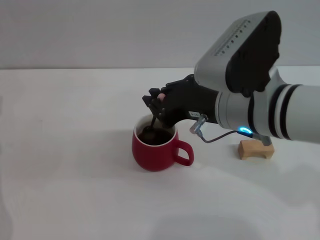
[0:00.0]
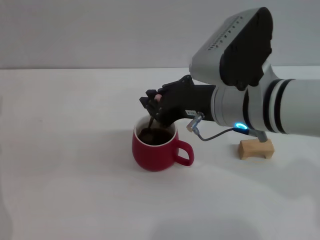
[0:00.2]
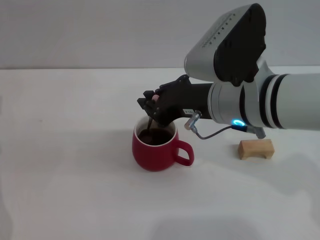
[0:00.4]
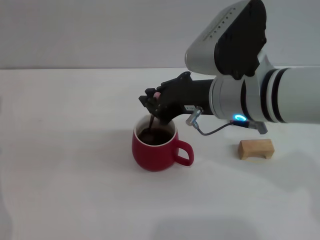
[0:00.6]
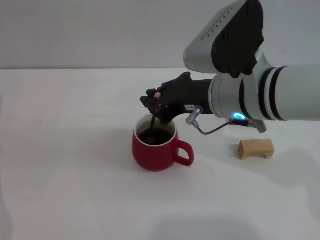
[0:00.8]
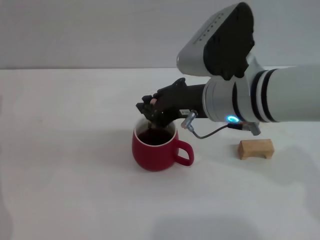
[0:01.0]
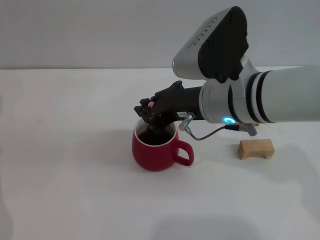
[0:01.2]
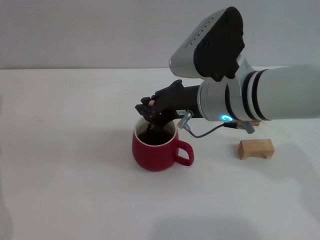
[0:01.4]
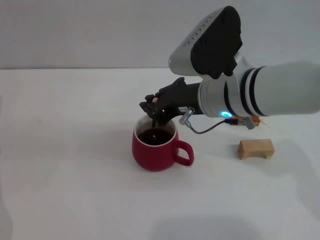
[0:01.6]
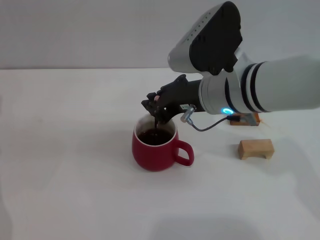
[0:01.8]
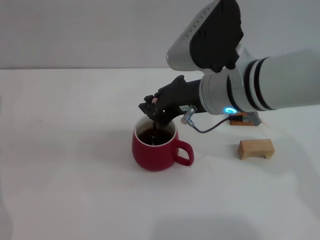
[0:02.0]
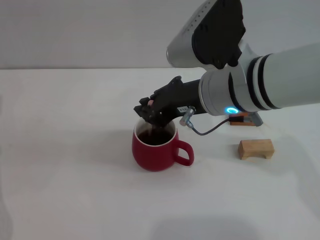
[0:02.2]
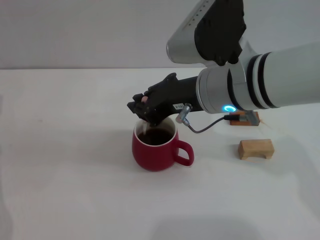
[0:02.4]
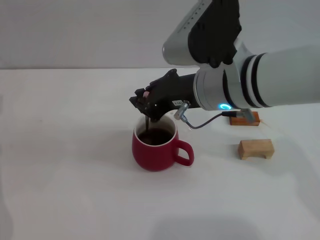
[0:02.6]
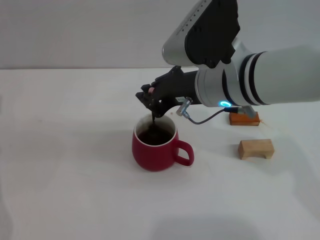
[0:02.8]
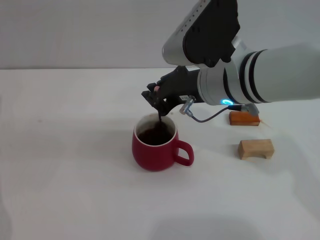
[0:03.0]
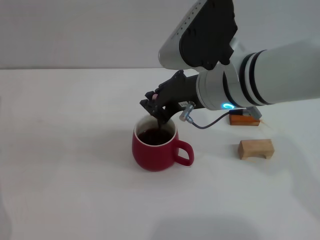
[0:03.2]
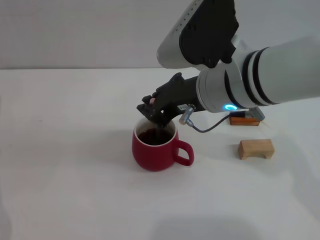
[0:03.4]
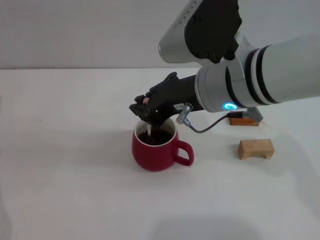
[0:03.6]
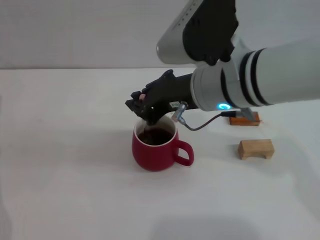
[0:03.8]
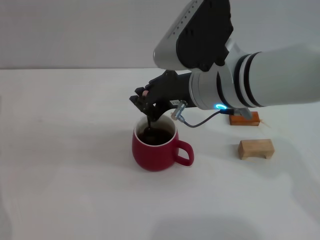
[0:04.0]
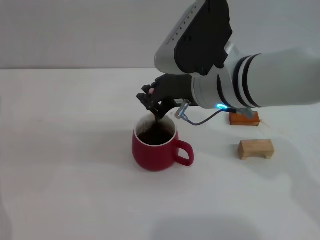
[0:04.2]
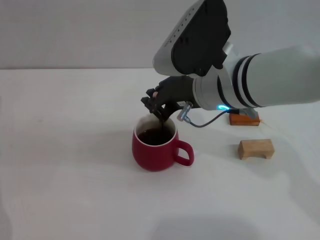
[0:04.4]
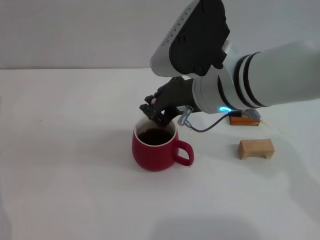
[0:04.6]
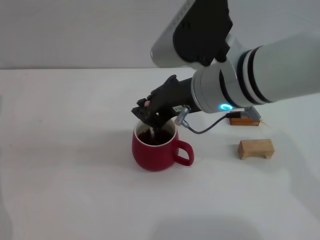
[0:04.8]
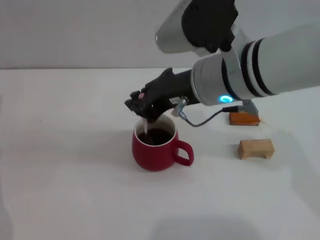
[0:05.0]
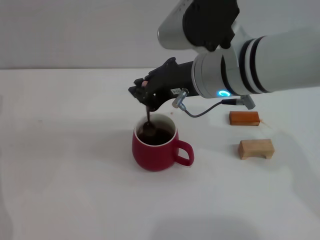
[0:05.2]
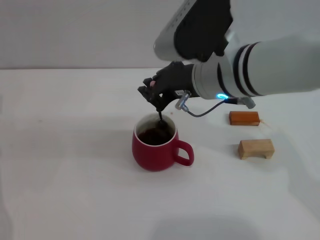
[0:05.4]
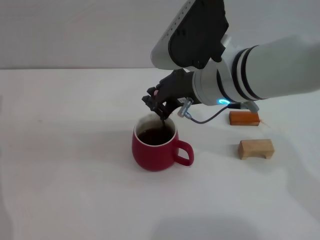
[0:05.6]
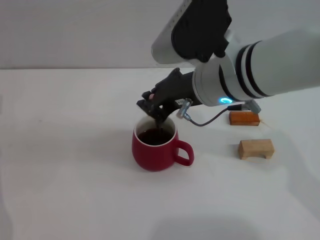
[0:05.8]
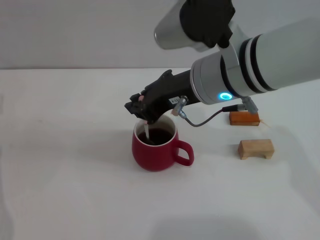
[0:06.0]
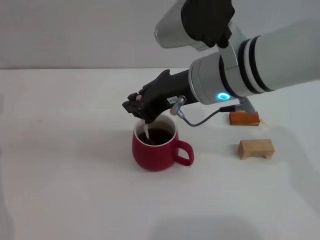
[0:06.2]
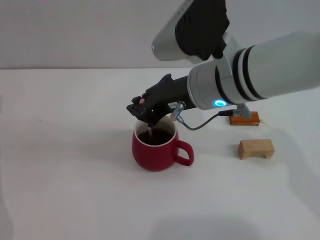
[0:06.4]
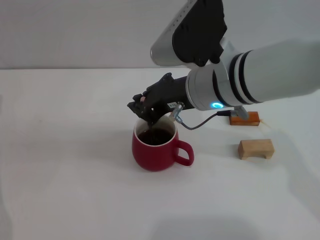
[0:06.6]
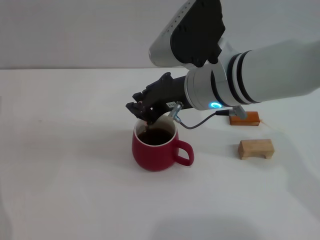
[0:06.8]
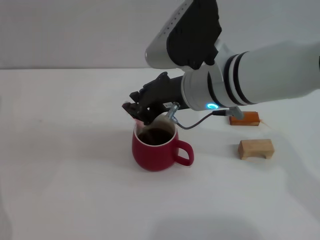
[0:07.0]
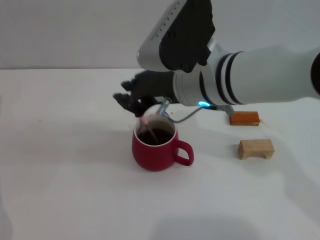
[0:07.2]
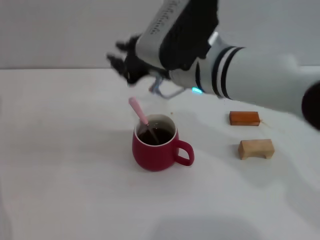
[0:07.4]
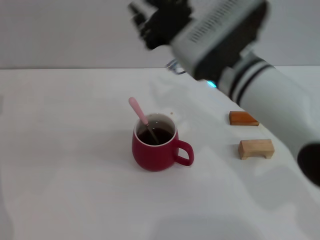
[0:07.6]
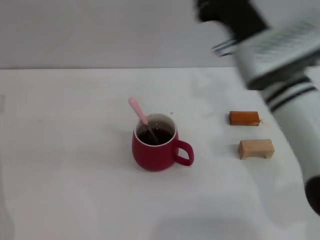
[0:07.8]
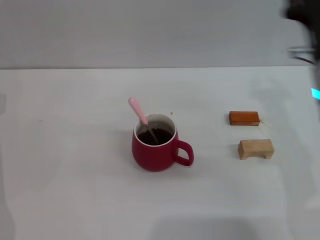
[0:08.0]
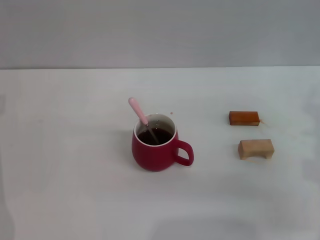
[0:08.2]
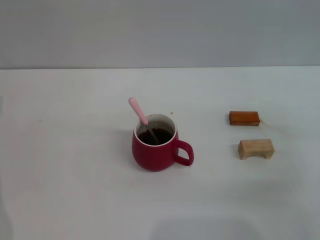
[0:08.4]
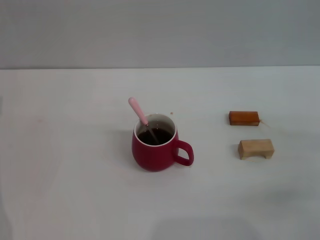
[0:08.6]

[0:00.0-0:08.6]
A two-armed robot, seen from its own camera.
Task of the whole recording: Move the red cup to the center, lift the pink spoon, stir it three times in the cup, and put the spoon into the cup.
Step, 0:00.0 to 0:07.2: Stir the coffee in the cup with the right gripper.
0:00.0 to 0:05.8: The grippers move only a little.
0:05.8 to 0:07.2: The grippers make only small movements.
0:07.2 to 0:08.6: The right gripper is displaced to the right and downward by approximately 30 cm.

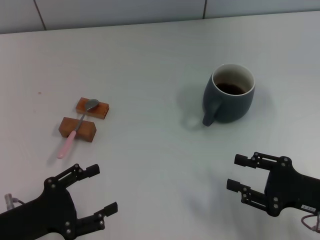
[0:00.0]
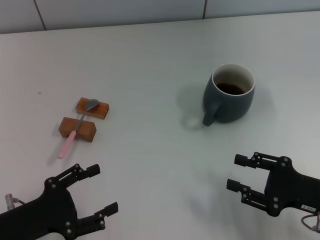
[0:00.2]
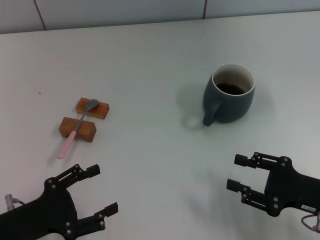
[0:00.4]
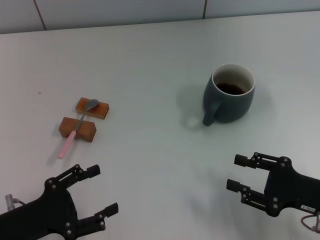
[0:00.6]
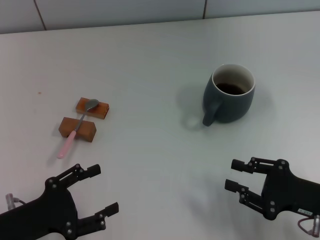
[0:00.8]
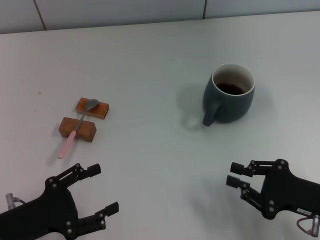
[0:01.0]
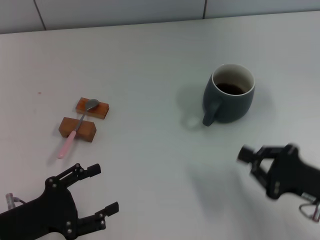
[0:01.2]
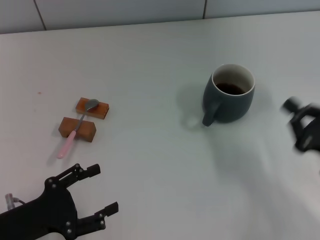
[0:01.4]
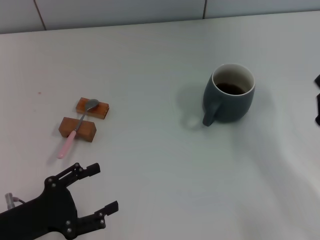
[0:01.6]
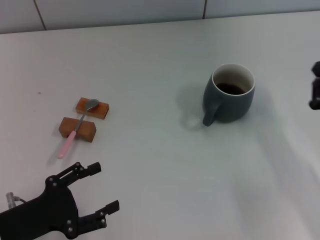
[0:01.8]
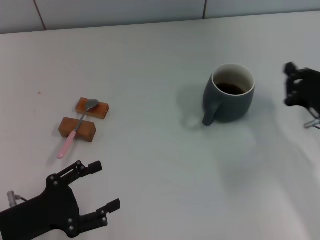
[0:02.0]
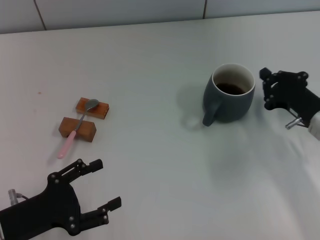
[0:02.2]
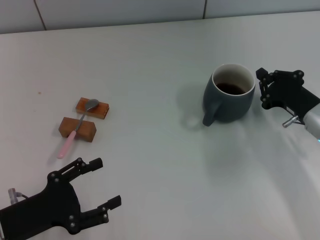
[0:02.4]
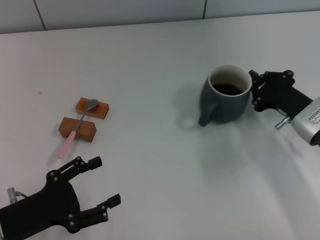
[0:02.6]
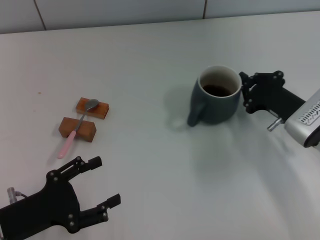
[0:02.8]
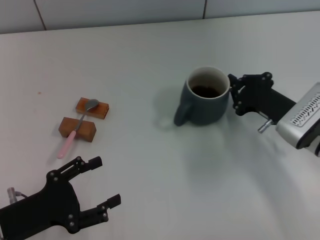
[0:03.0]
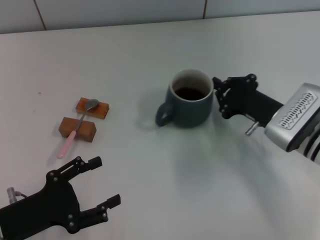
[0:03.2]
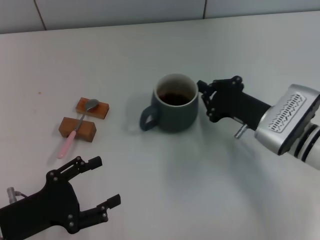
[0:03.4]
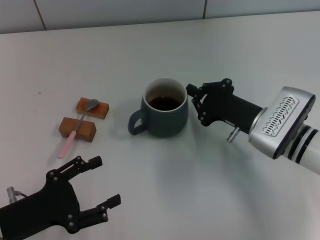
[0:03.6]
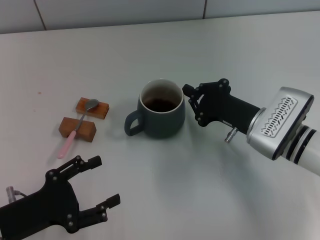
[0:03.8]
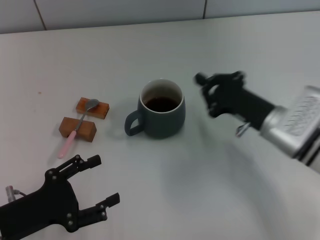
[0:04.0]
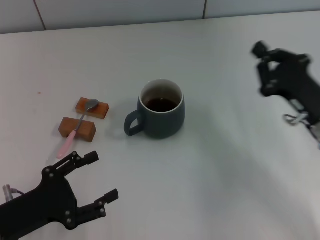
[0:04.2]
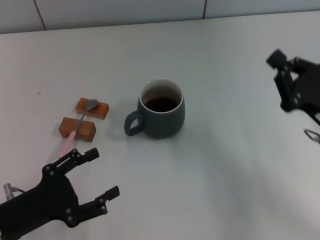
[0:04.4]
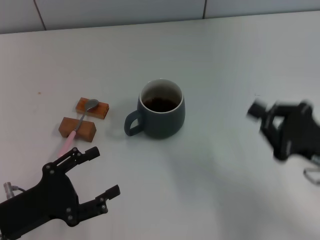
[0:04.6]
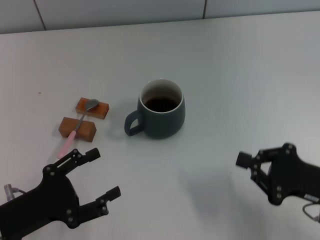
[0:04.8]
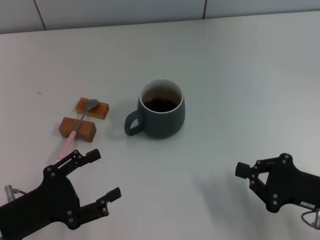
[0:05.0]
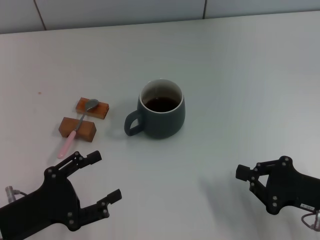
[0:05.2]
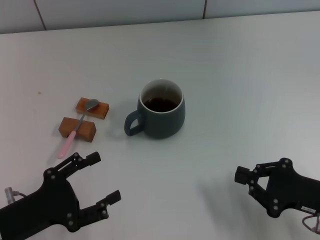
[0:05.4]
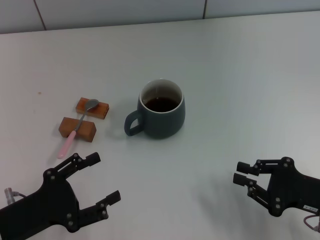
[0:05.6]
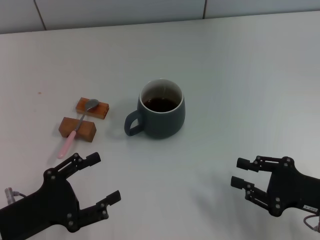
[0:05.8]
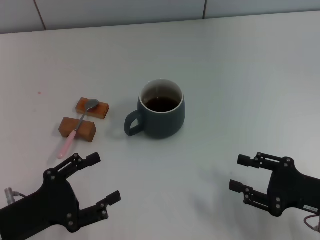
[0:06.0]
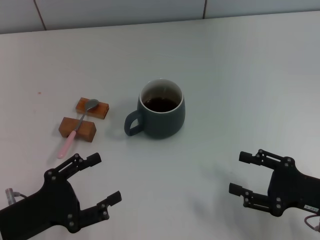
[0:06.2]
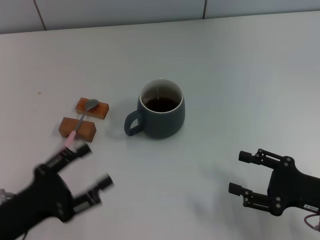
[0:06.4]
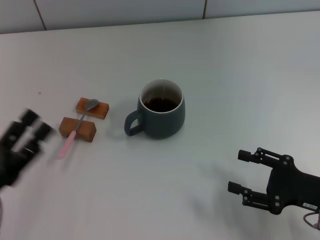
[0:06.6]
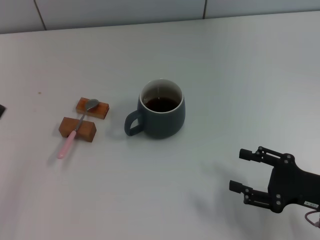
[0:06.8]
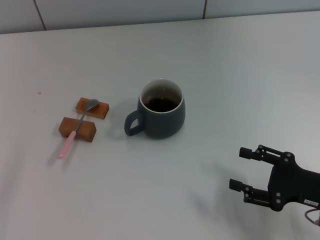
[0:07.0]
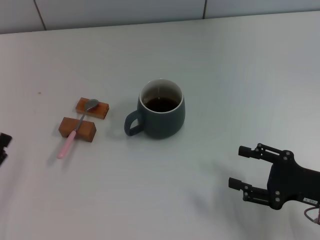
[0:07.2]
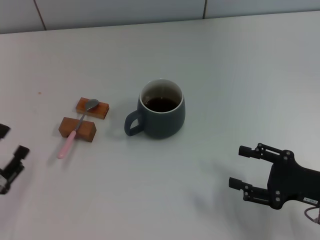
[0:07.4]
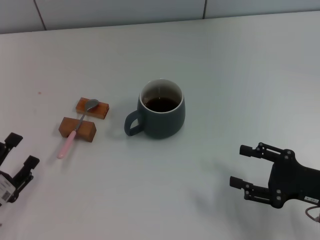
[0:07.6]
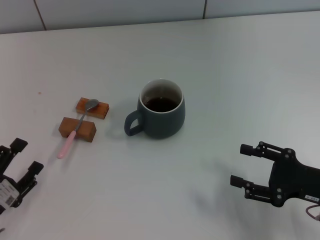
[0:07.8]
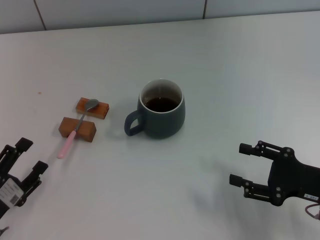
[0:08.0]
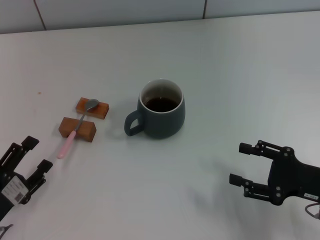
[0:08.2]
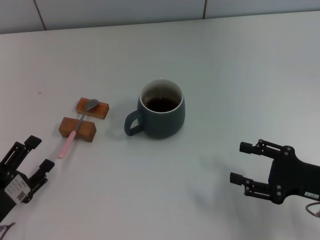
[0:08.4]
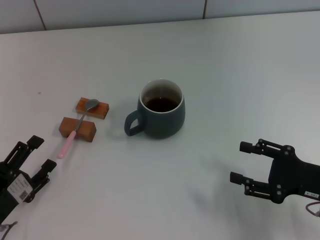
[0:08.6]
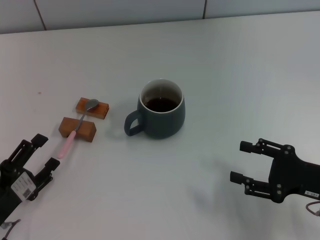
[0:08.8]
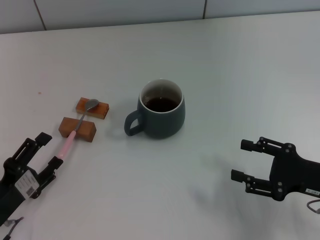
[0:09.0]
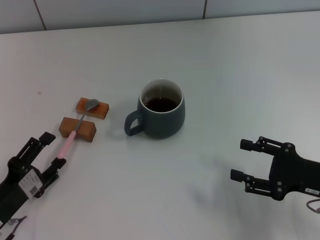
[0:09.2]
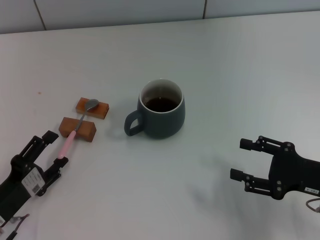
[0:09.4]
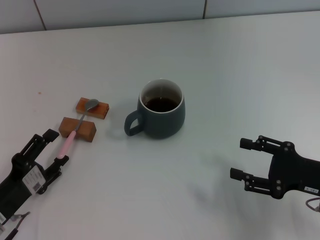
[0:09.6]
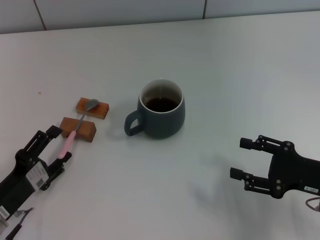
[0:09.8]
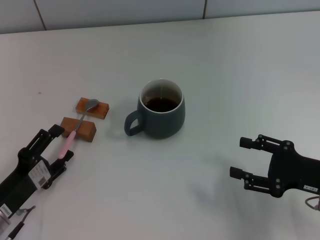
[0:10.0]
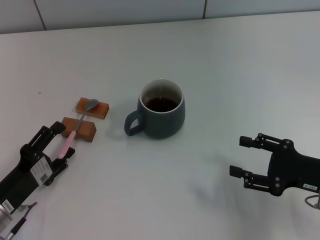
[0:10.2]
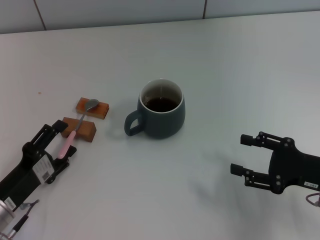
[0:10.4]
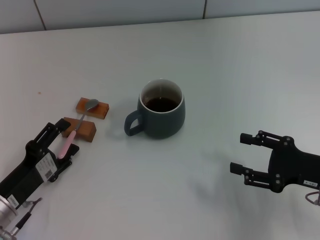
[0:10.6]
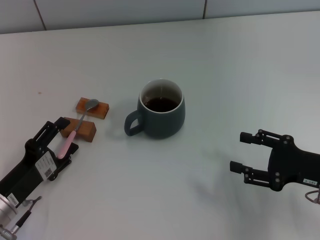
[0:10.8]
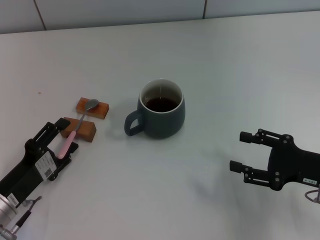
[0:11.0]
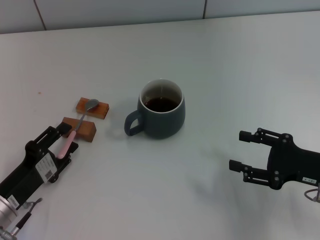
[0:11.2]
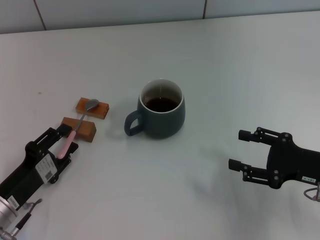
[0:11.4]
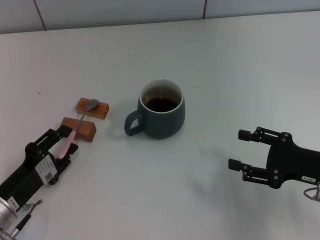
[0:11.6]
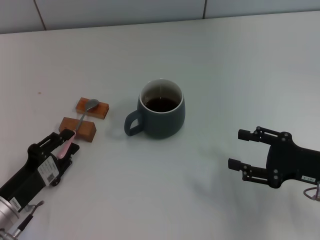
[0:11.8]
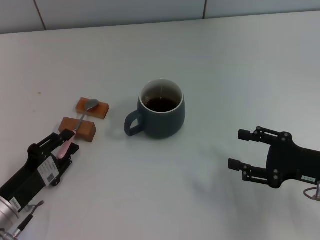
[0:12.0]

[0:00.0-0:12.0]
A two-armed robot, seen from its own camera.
Task of the whole recording: Move the grey cup to the center, lift the pink spoon, stir it three times in the cup, and put the spoon into the cup.
Step, 0:00.0 to 0:04.0: Move the cup with coffee to the center of view with the right gripper.
0:00.0 to 0:01.6: The right gripper closes.
0:01.6 to 0:03.0: The right gripper goes about 15 cm forward and to the left.
0:03.0 to 0:04.4: The right gripper travels backward by about 5 cm.
0:04.4 to 0:06.0: The right gripper travels backward by some 5 cm, and opens.
0:06.0 to 0:07.6: The left gripper changes place by approximately 5 cm; the right gripper opens.
0:07.6 to 0:09.0: The grippers make only small movements.
0:09.0 to 0:10.4: The grippers stay close to where they were, moving slightly.
0:10.4 to 0:12.0: The left gripper closes its fingers.

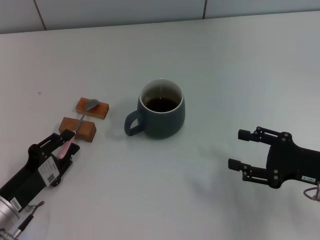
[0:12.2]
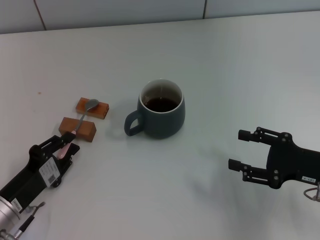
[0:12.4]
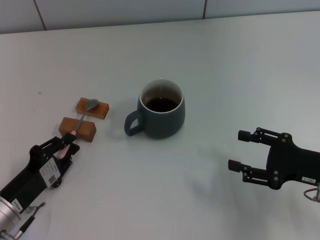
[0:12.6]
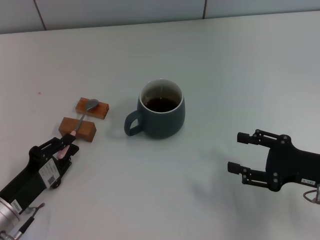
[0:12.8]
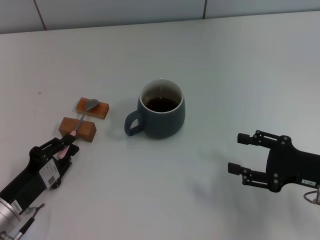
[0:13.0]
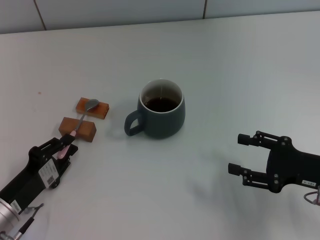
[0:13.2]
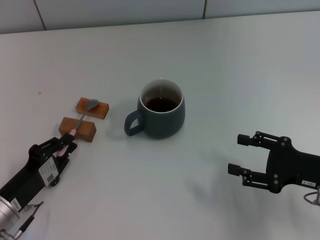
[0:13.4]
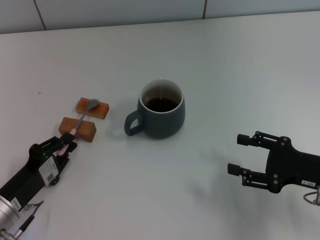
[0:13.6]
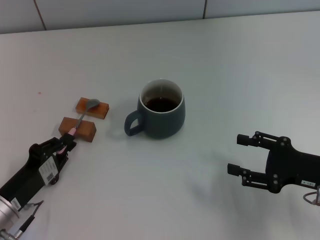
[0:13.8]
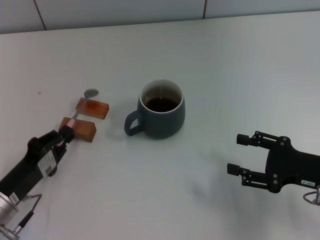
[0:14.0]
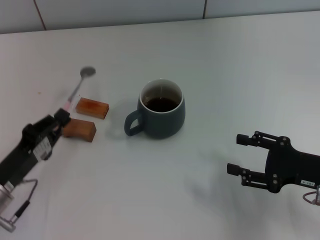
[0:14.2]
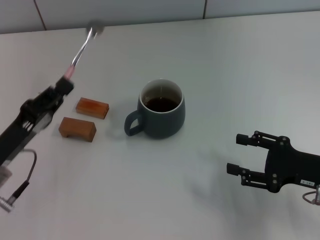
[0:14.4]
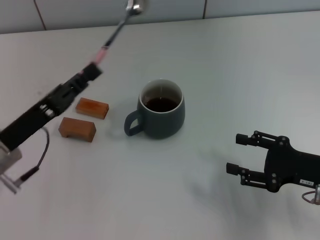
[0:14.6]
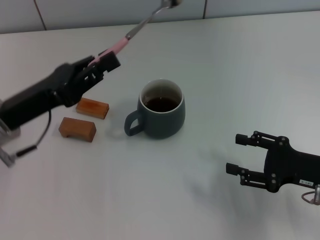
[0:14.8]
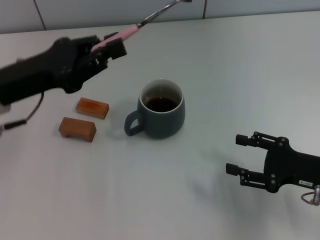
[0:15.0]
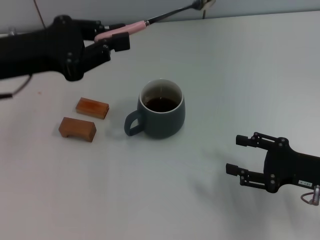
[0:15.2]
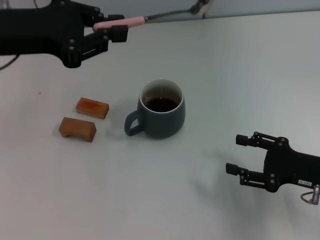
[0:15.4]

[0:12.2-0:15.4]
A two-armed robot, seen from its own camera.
Task of the whole recording: Move the grey cup to the center, lift the pink spoon, stir it three times in the cup, and put the spoon into the cup.
Step, 0:12.2 to 0:14.2: Pick up the spoon with the left gripper.
0:12.2 to 0:13.8: The grippers move only a little.
0:13.8 to 0:15.4: The left gripper goes about 30 cm upward and forward.
